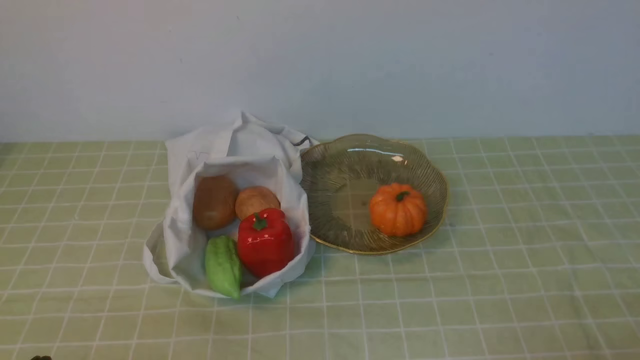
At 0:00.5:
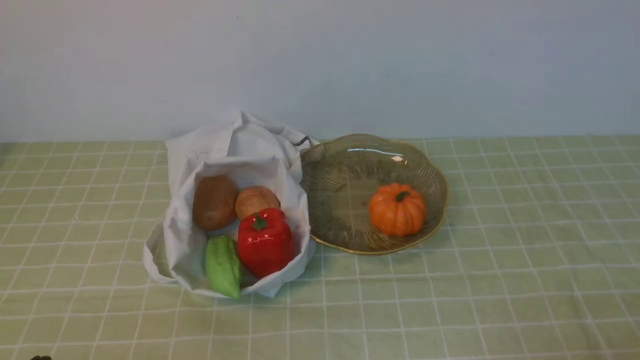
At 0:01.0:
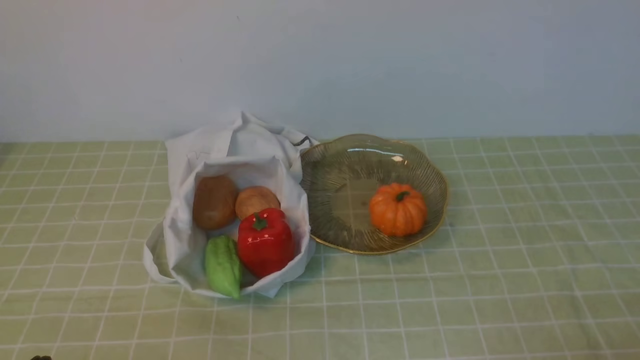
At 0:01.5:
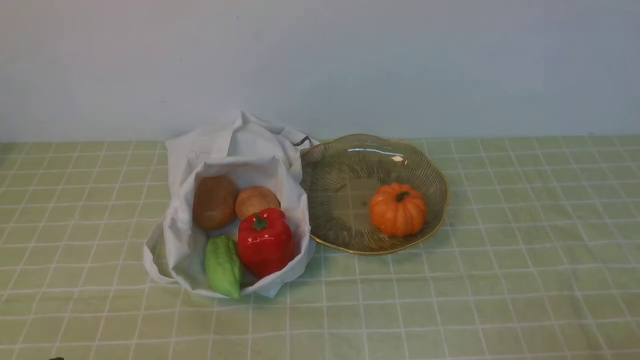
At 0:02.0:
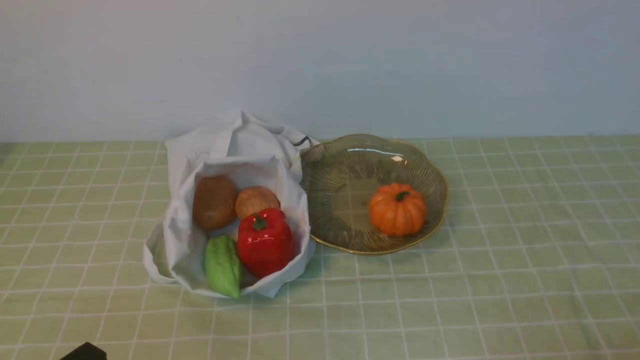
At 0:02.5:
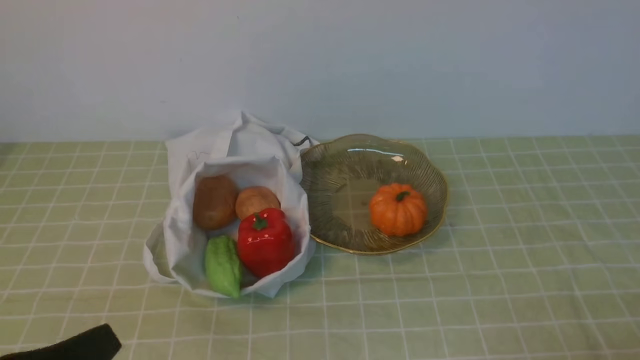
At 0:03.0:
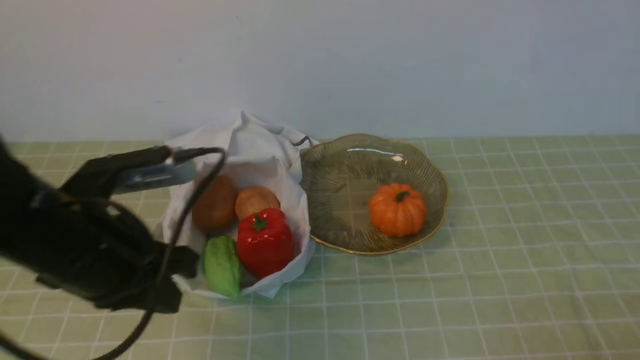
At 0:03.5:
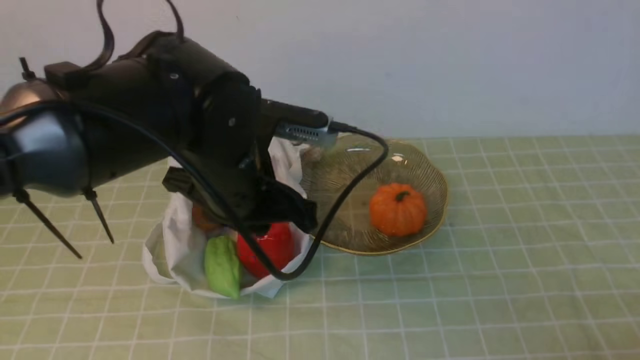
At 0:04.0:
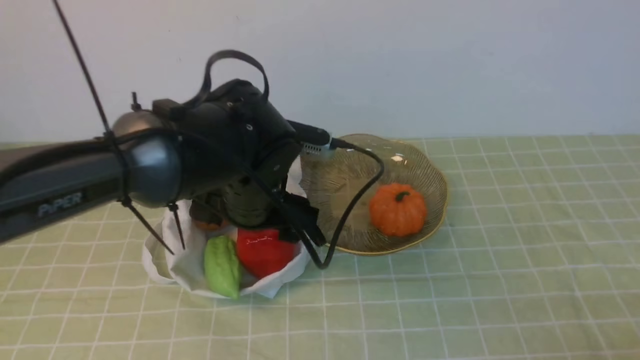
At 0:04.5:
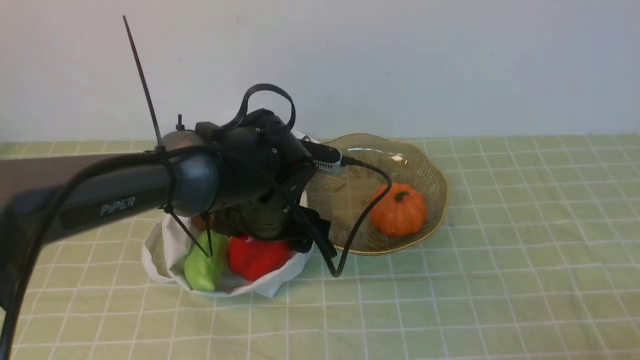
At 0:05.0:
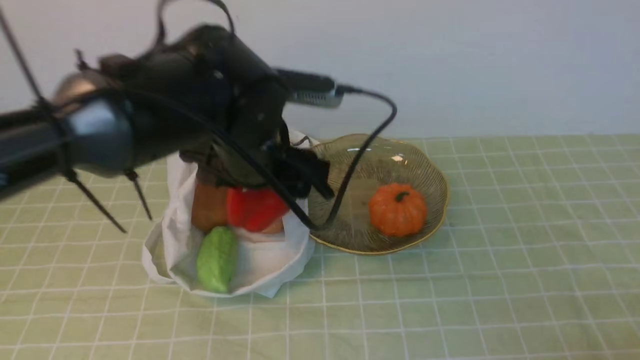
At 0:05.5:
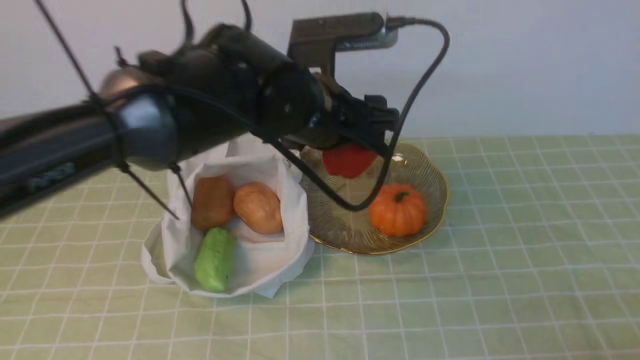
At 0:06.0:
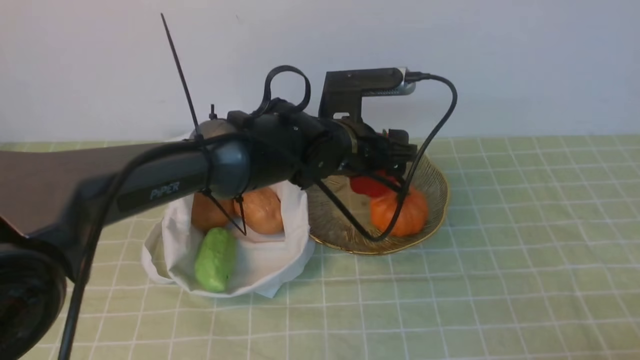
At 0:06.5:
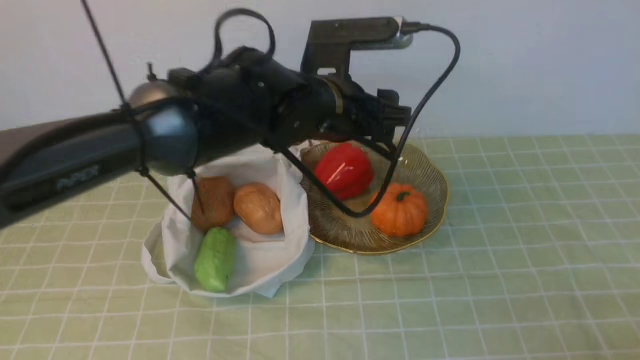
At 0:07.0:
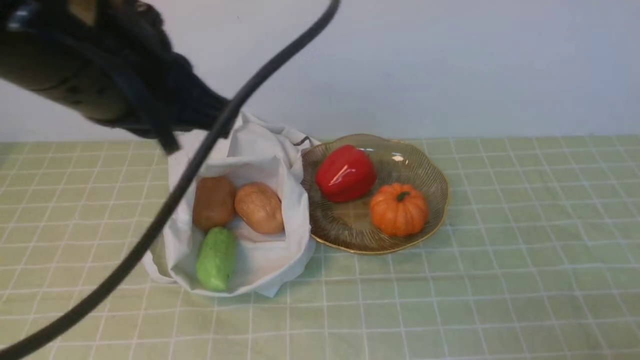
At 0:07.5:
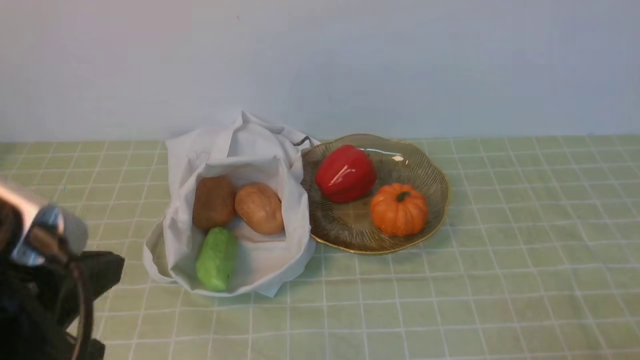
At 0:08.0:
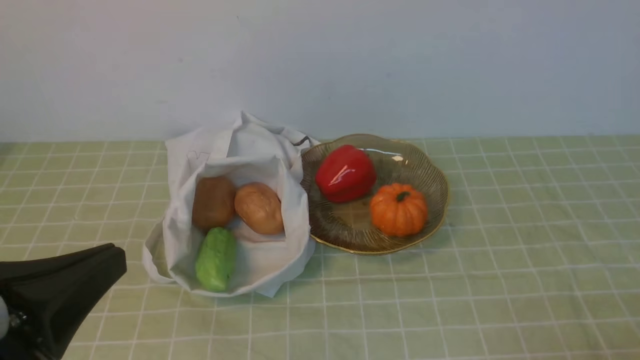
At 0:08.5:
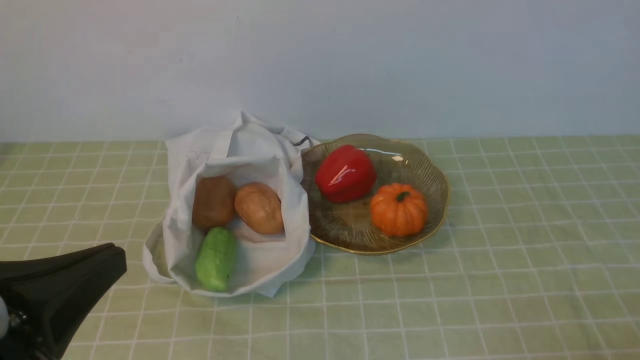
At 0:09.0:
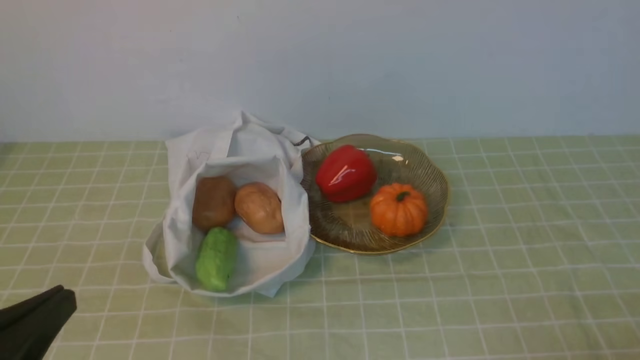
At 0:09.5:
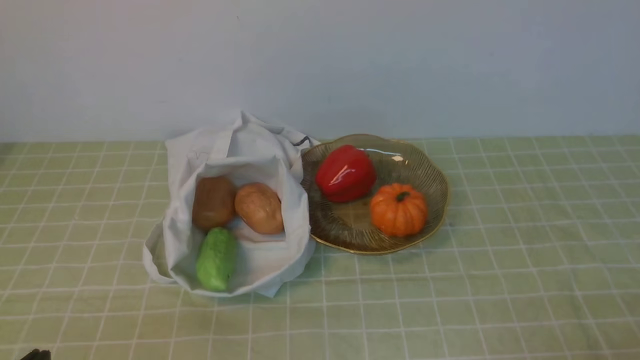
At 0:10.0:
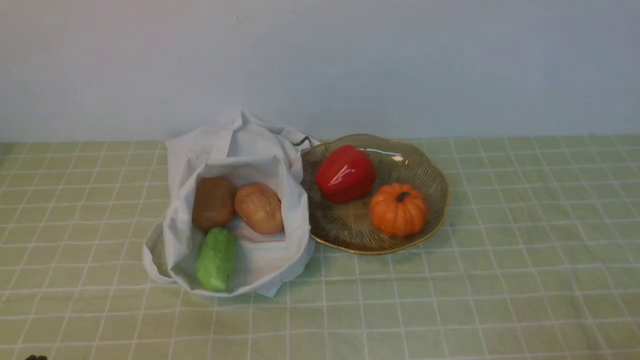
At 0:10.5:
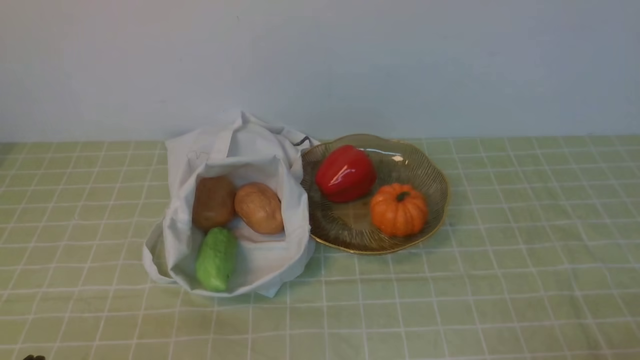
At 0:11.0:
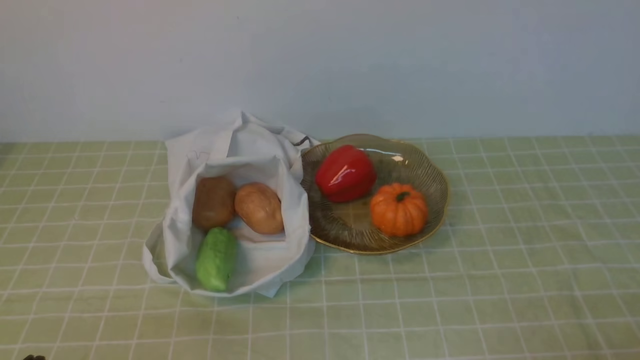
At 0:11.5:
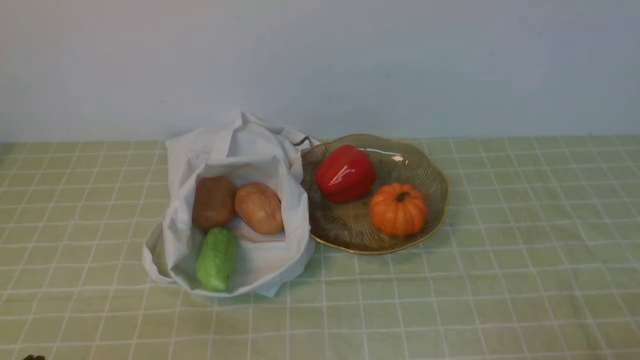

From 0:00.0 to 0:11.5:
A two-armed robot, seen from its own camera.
Task of the whole recording: take vegetables from bag on green coffee tablecloth place on plate.
Step, from 0:00.0 to 0:04.5: Grasp the bell pepper with left gripper.
Step, from 0:05.0 to 0:06.5: Place the bell pepper on the plate with left gripper.
From 0:02.0 to 0:04.0: The left gripper moves forward and to the right, roughly 30 cm, and opens.
From 0:04.0 to 0:06.0: The left gripper goes roughly 10 cm to the right and forward, and reaches approximately 5 cm upward, then returns.
From 0:06.0 to 0:07.5: The left gripper moves backward, to the left and upward, roughly 35 cm, and closes up.
From 0:07.5 to 0:09.5: The left gripper goes roughly 15 cm downward.
From 0:09.5 to 0:11.5: The two grippers keep their place.

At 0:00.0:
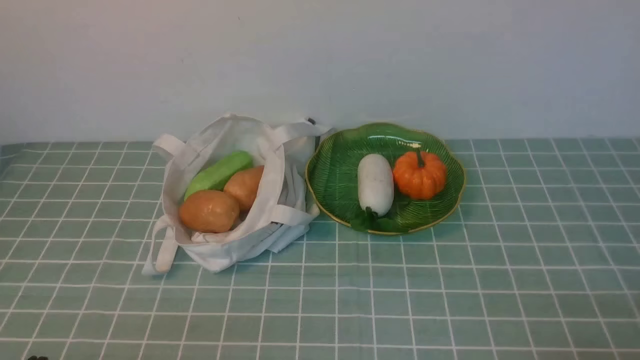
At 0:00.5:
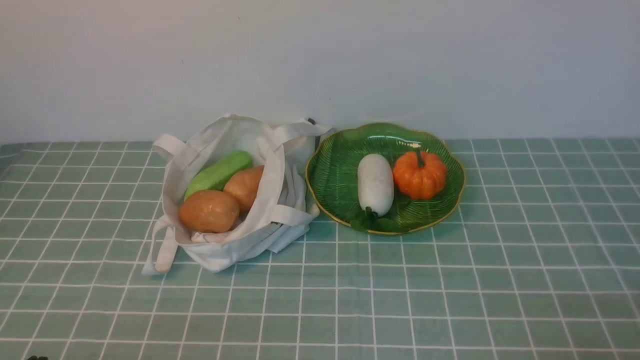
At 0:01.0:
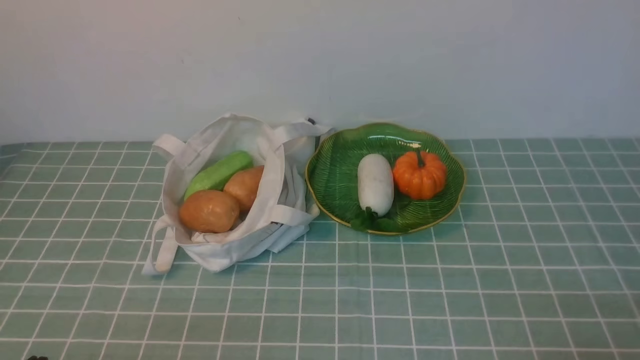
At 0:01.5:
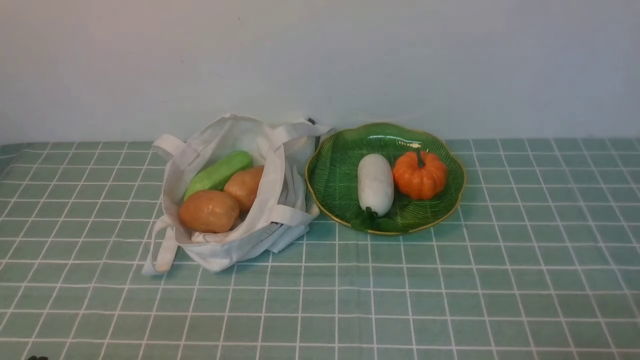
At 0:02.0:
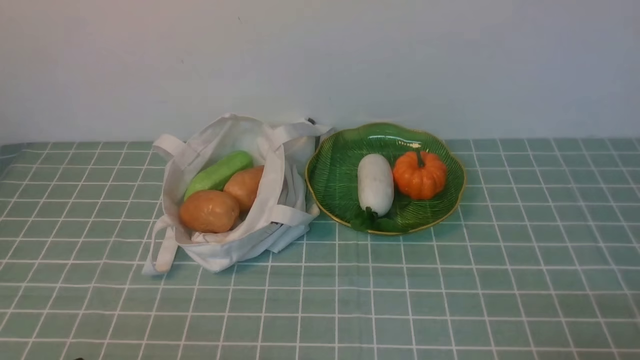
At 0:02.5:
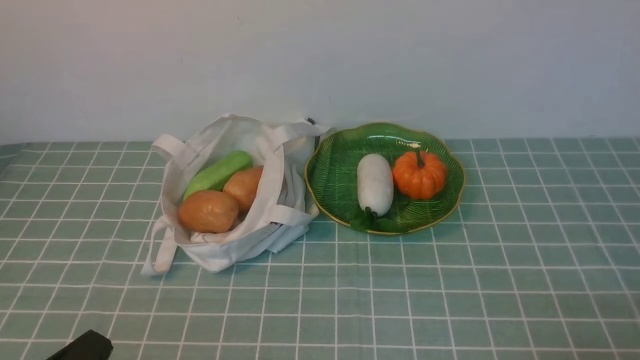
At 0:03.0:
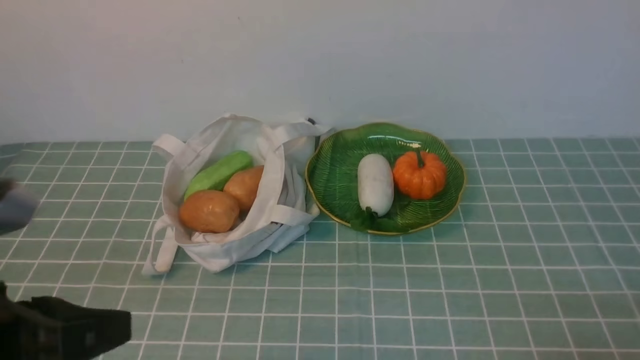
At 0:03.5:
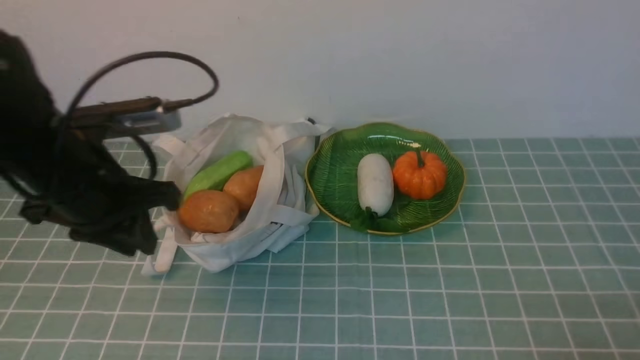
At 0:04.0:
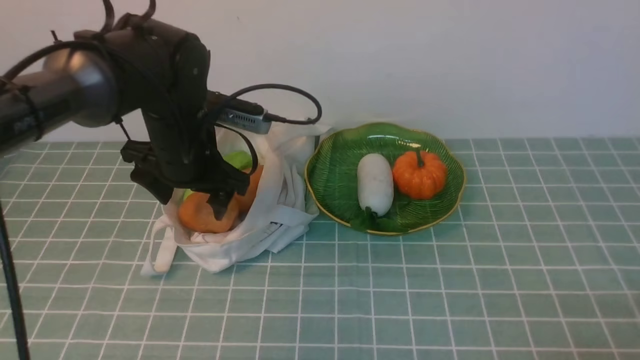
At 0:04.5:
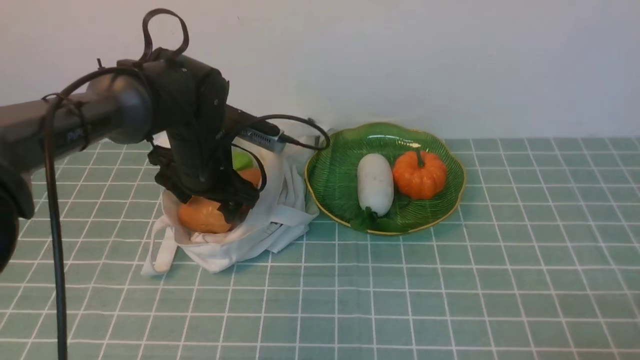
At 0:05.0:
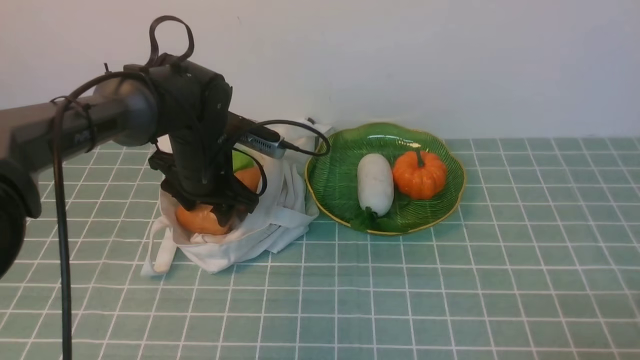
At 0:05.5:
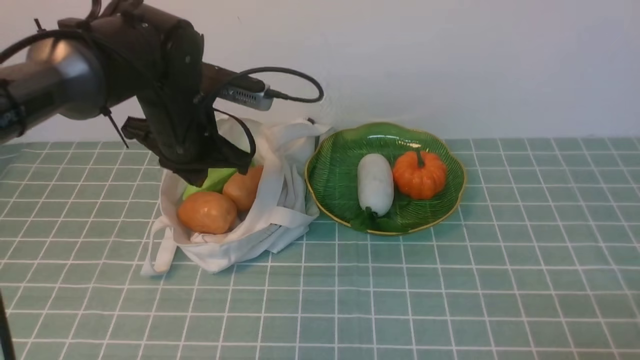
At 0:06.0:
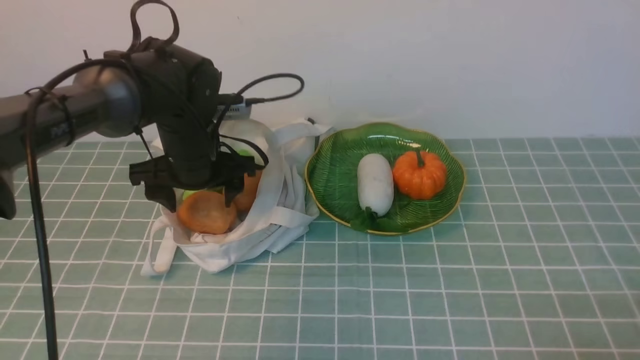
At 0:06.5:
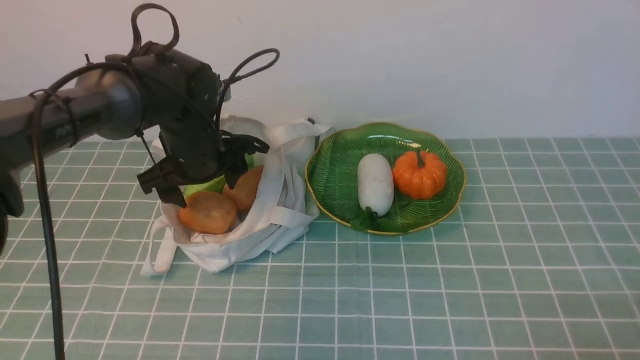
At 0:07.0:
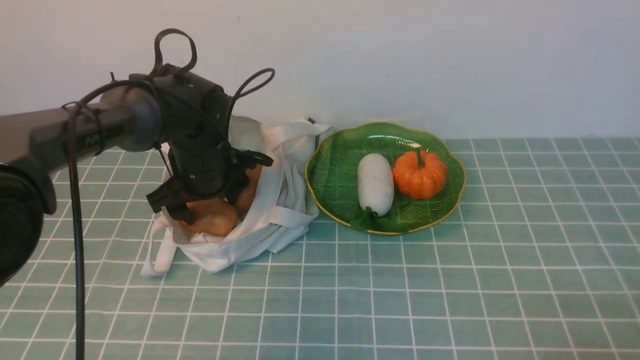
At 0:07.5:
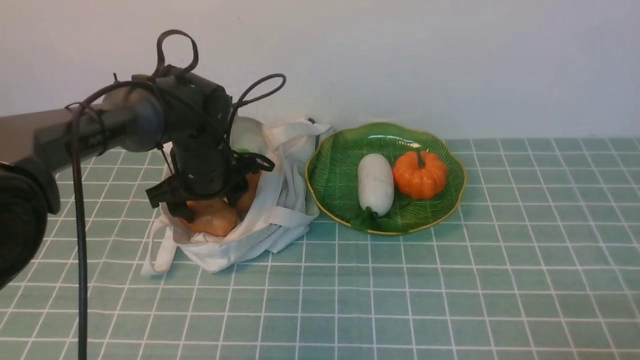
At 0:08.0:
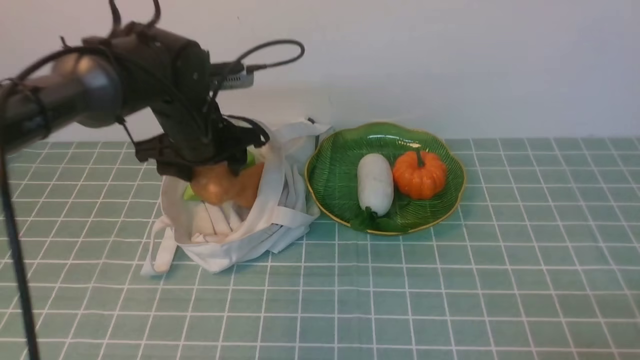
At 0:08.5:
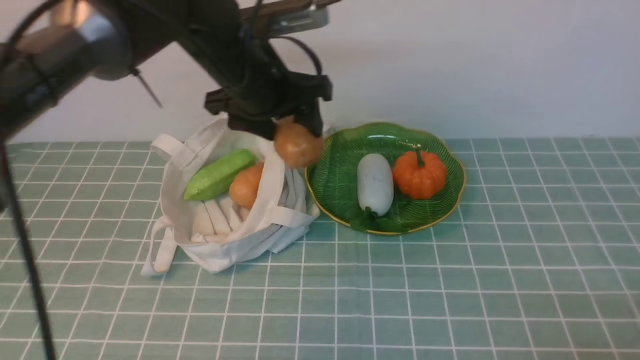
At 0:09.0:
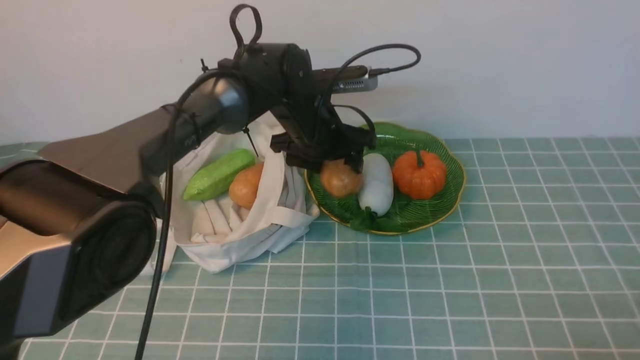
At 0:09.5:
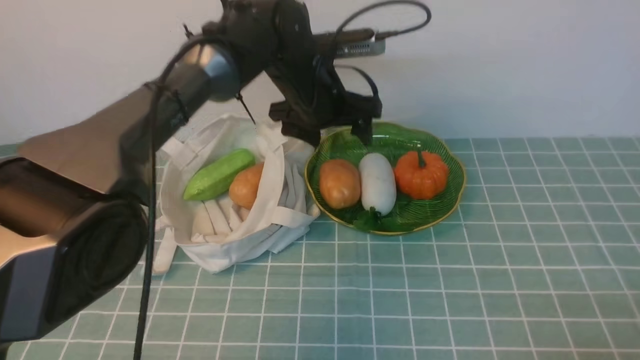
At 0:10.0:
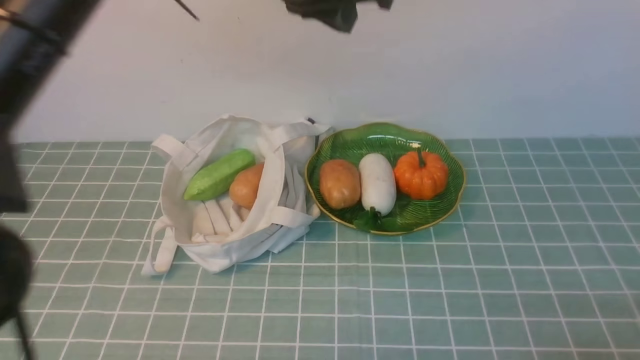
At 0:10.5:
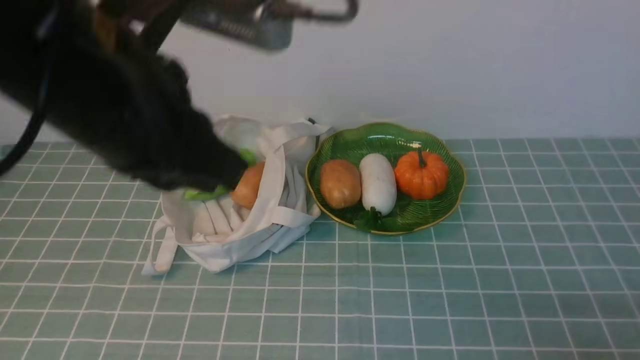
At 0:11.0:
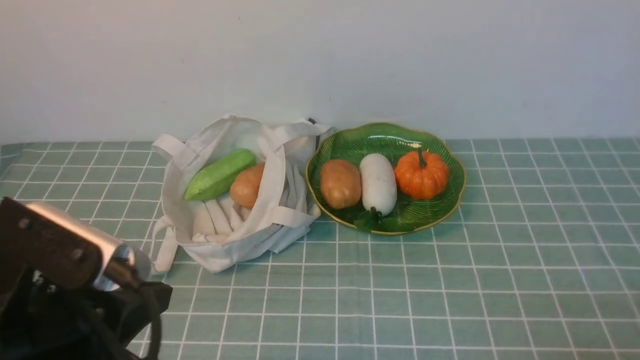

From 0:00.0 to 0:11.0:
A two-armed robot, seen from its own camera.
Task of the whole recording: take vegetables from cloth bag on blue coffee tablecloth place on plate.
Step, from 0:00.0 to 0:07.5: Grasp the potato with left gripper.
Step, from 0:08.0 to 0:09.0: Place the potato on the plate with left gripper.
From 0:02.0 to 0:03.5: The left gripper shifts some 25 cm forward and upward.
From 0:03.5 to 0:05.5: The left gripper moves forward and to the right, approximately 10 cm, and opens, then closes again.
From 0:05.5 to 0:07.5: The left gripper travels downward by roughly 5 cm, and opens.
From 0:07.5 to 0:09.0: The left gripper shifts about 10 cm to the right.
From 0:09.0 to 0:11.0: The left gripper heads backward and to the left, covering approximately 40 cm, and closes.
